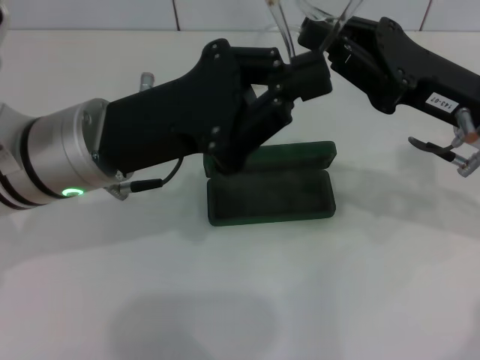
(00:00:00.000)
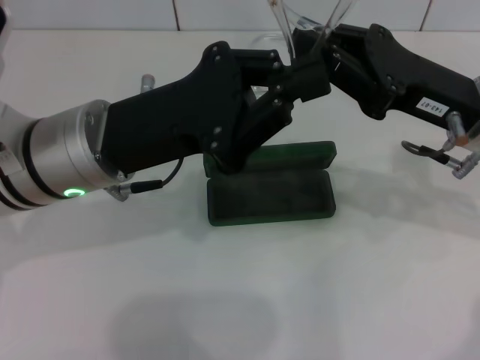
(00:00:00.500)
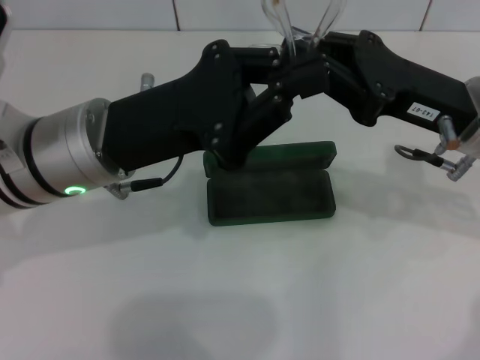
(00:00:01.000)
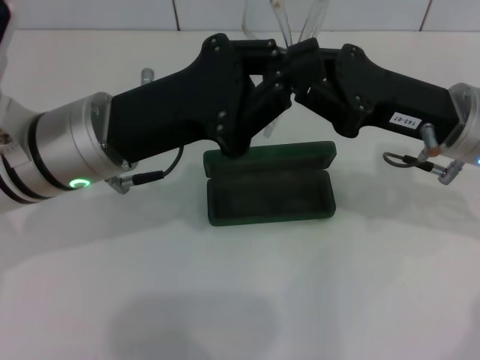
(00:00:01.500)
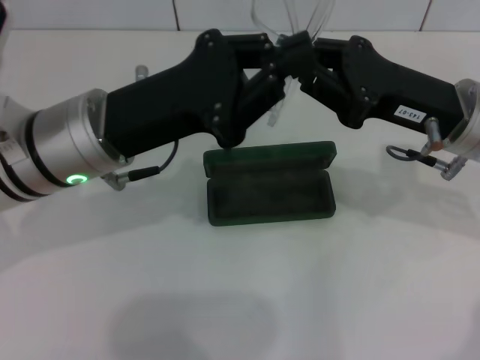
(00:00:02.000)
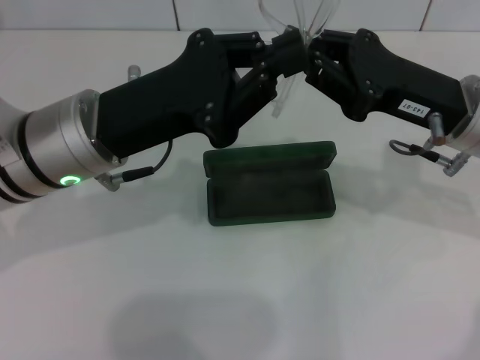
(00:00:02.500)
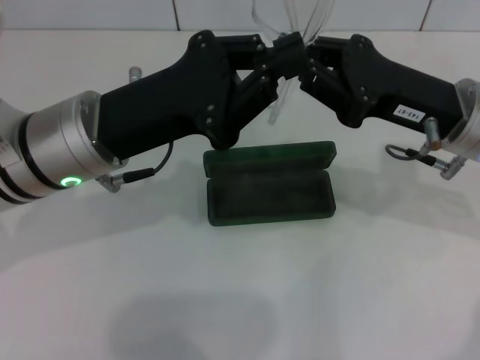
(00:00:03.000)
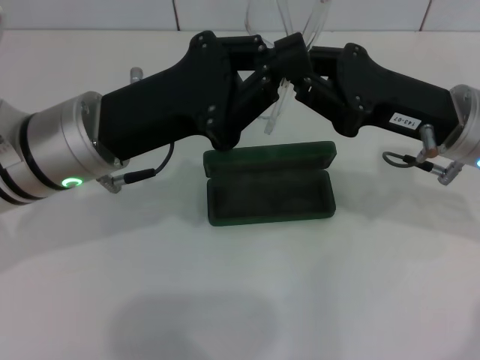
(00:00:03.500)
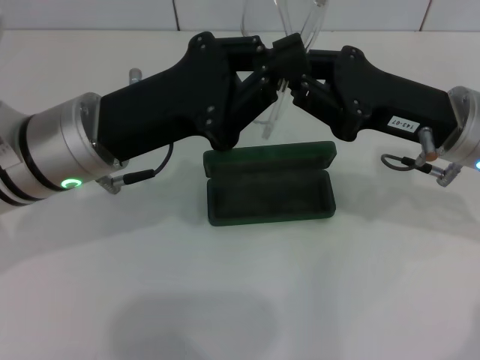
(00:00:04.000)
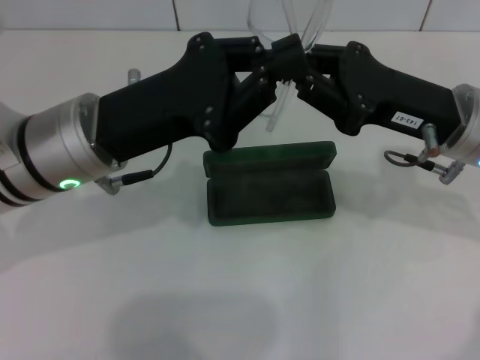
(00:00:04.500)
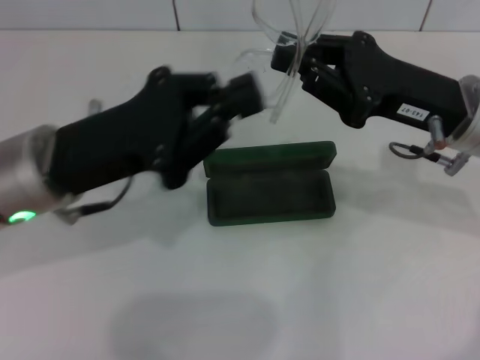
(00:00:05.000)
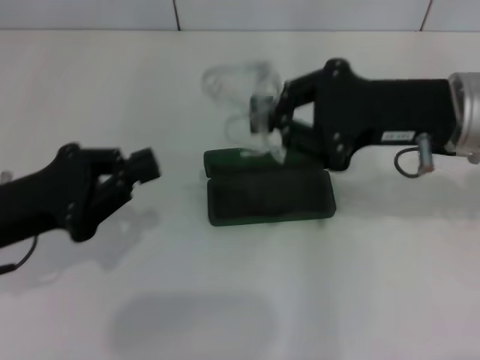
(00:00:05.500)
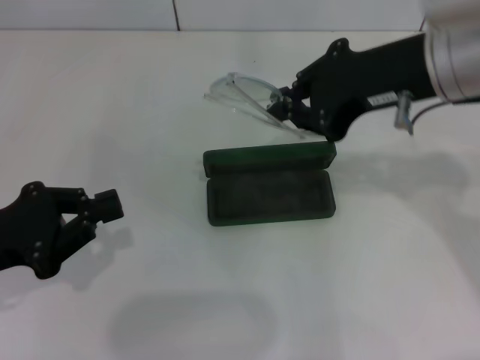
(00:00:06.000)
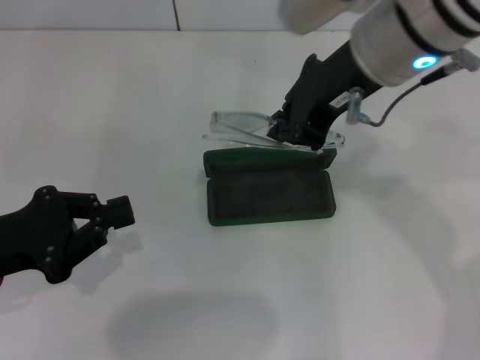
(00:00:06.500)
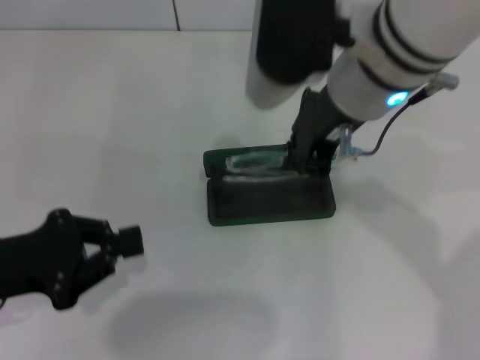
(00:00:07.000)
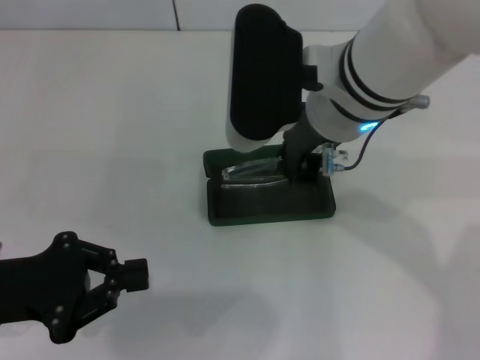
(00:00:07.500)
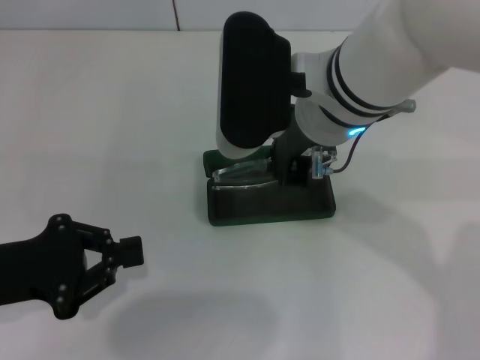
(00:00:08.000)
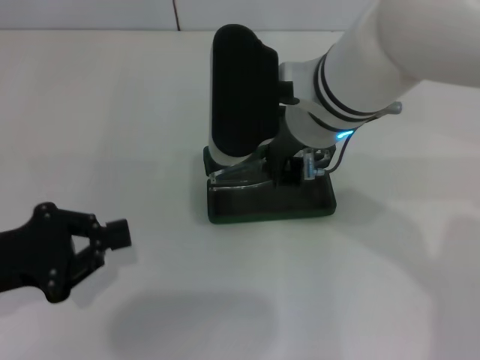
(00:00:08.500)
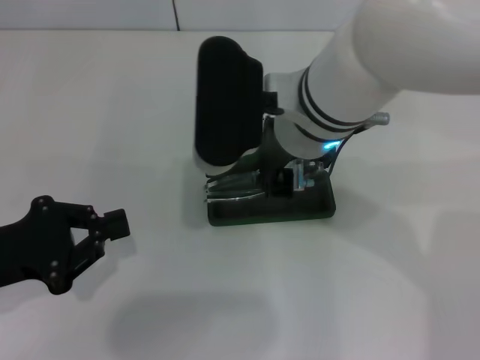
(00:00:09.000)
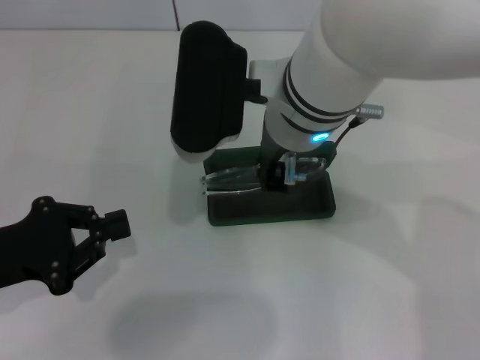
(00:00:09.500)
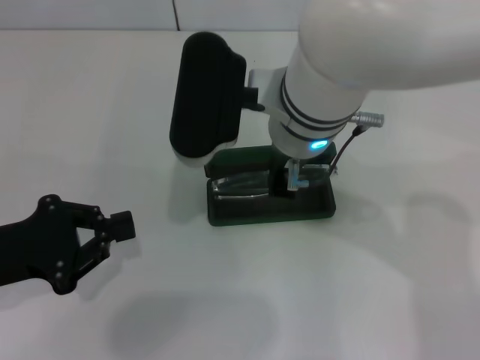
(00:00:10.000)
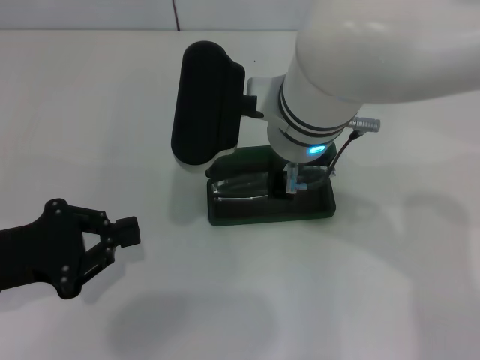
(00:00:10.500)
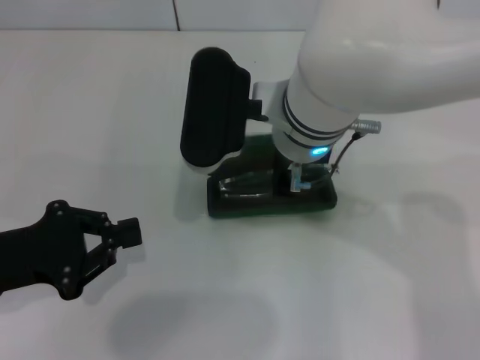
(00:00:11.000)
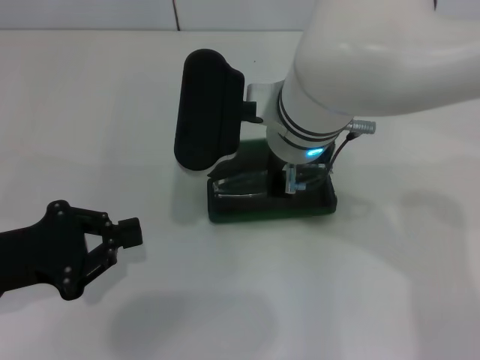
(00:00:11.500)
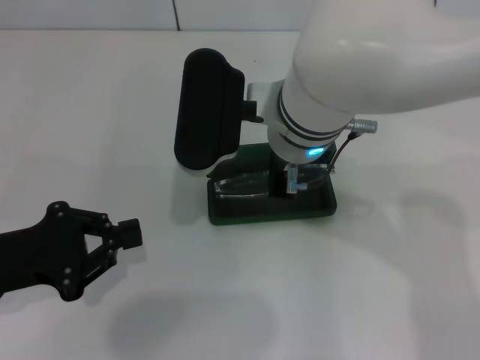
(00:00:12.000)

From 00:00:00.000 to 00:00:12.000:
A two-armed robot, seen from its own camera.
From 00:00:00.000 to 00:00:02.000: The grippers make only small movements.
From 00:00:02.000 to 00:00:04.000: The two grippers keep their place.
From 00:00:04.000 to 00:00:06.000: The left gripper travels to the left and backward by about 15 cm. Meanwhile the right gripper shifts approximately 10 cm upward.
From 00:00:06.000 to 00:00:08.000: The right gripper shifts approximately 10 cm to the left.
From 00:00:10.000 to 00:00:12.000: The grippers move only a little.

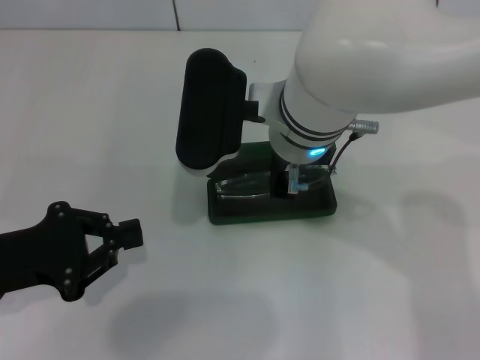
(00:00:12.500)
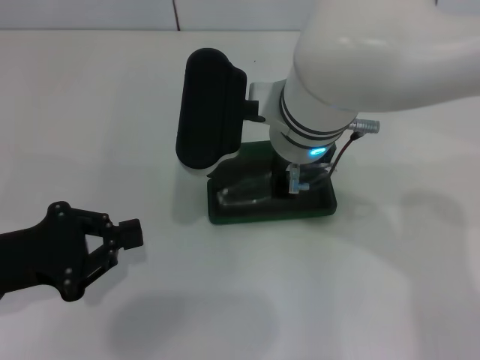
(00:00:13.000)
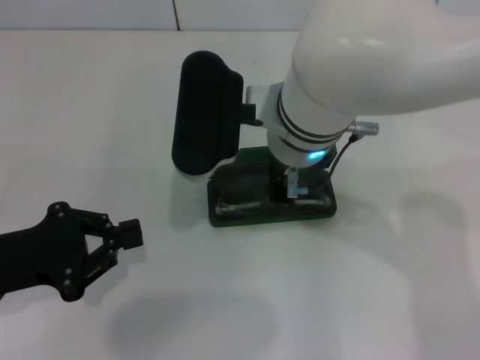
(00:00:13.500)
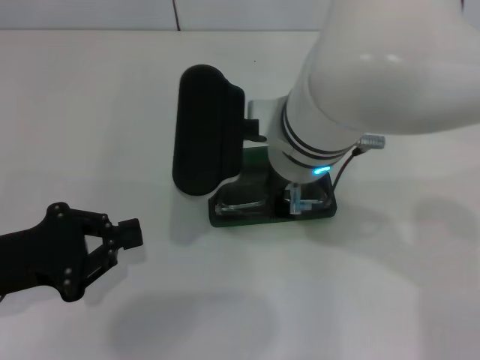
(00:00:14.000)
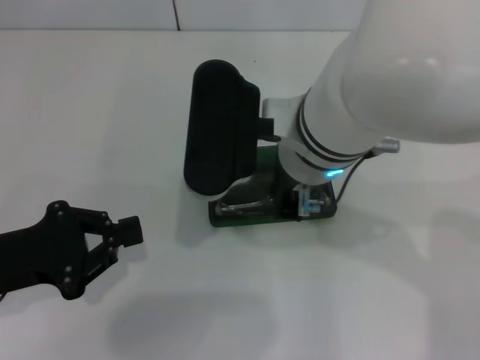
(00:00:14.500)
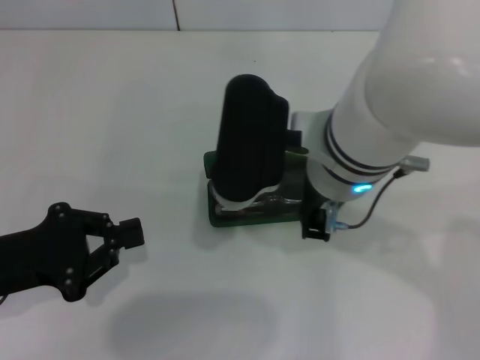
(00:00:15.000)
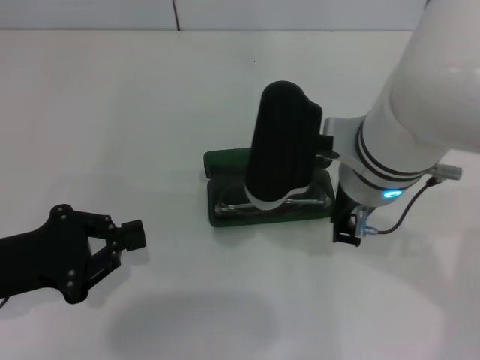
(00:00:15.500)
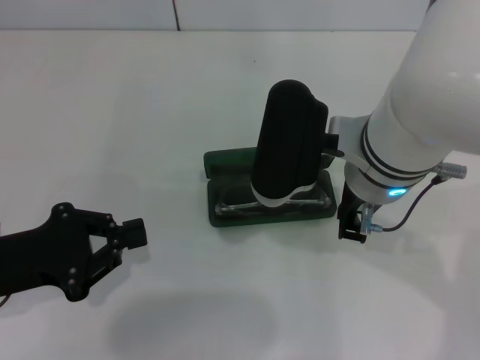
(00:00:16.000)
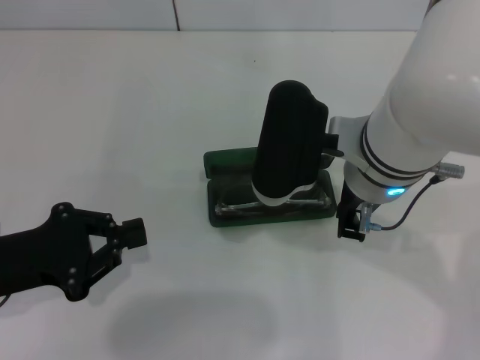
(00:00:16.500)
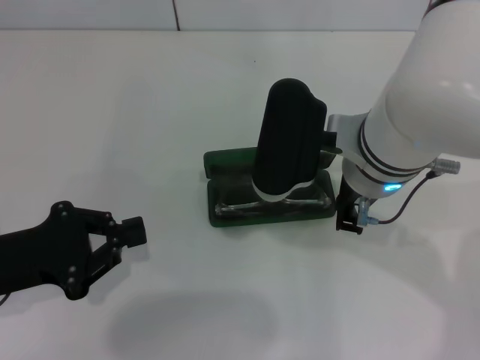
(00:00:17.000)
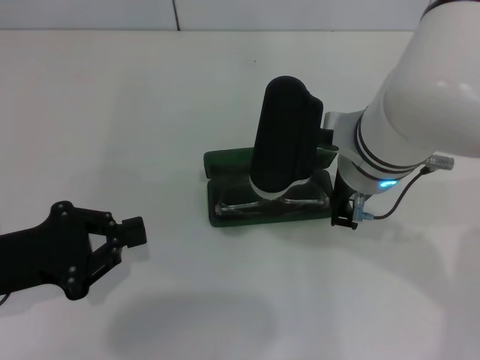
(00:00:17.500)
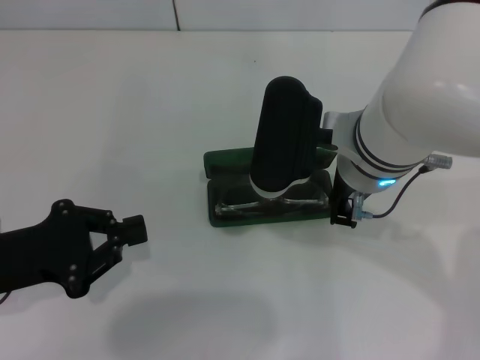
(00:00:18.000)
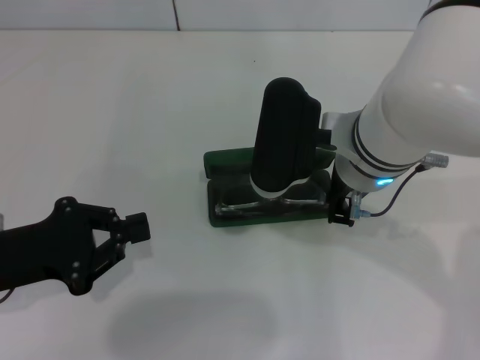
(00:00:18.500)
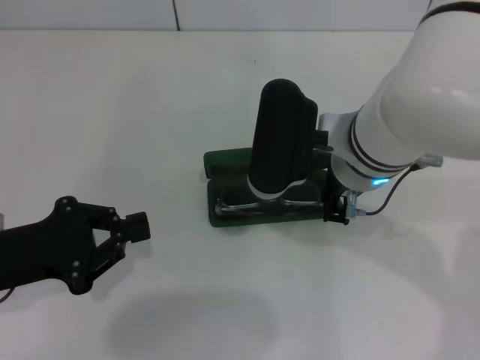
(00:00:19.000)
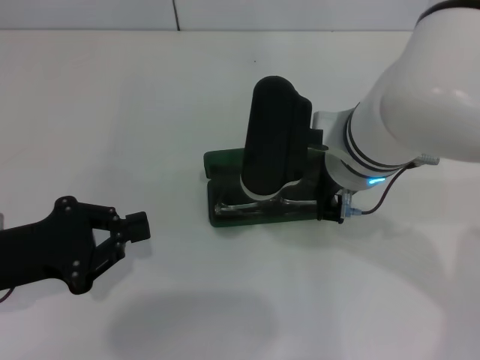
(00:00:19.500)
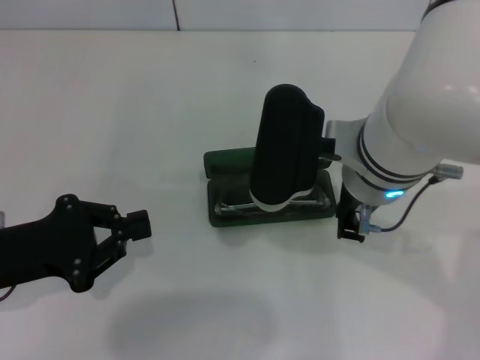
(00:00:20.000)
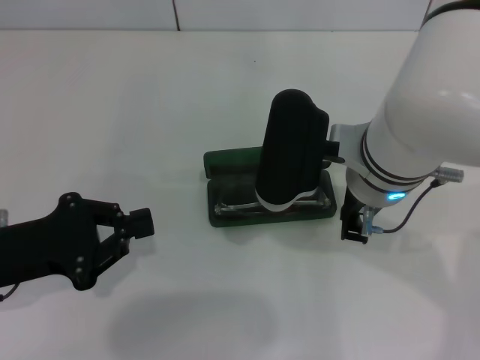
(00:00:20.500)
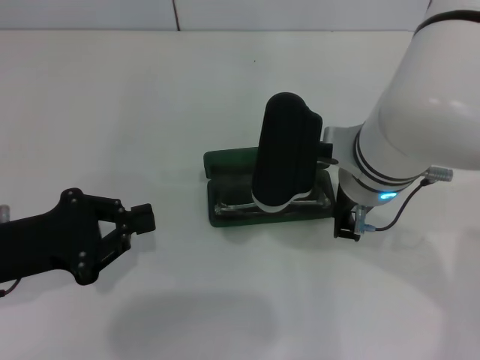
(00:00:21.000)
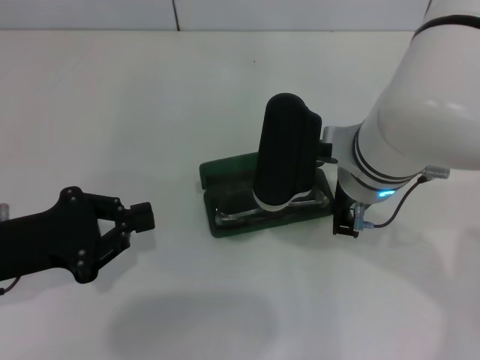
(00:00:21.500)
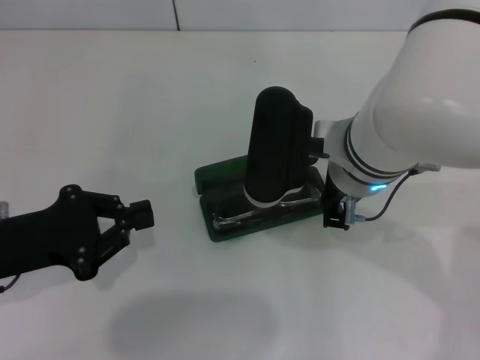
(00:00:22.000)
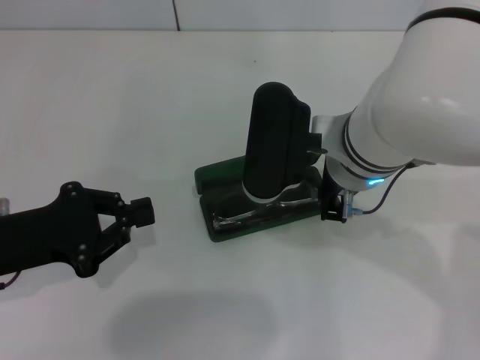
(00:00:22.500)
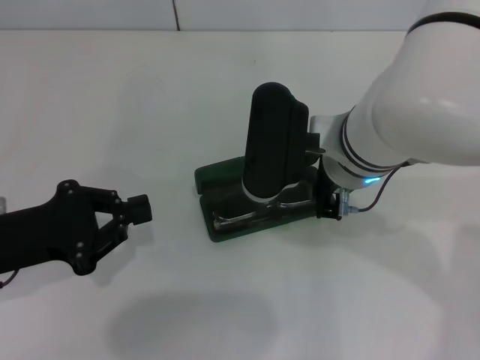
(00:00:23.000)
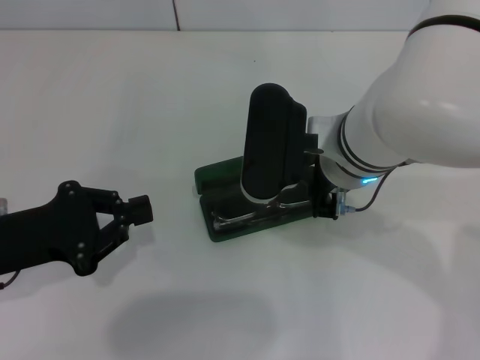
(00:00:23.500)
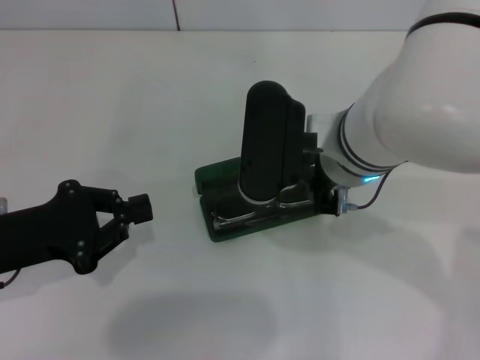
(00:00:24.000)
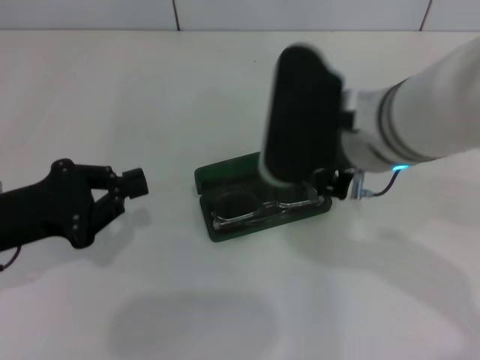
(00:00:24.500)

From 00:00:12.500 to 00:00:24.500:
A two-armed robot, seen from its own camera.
Step, from 00:00:12.500 to 00:00:19.500: Put the glasses into the case with your right hand.
From 00:00:12.500 to 00:00:14.500: The grippers make only small movements.
From 00:00:14.500 to 00:00:16.500: The right gripper moves about 5 cm.
From 00:00:16.500 to 00:00:24.500: The grippers stay close to where they were, moving slightly.

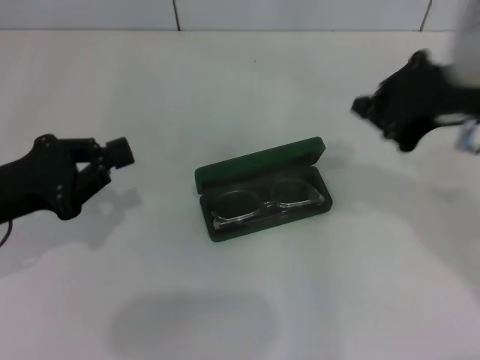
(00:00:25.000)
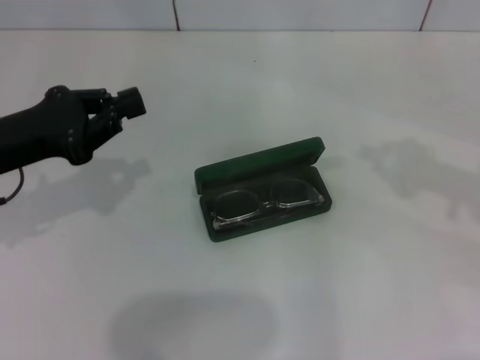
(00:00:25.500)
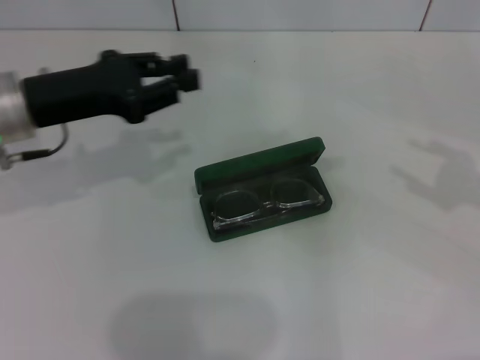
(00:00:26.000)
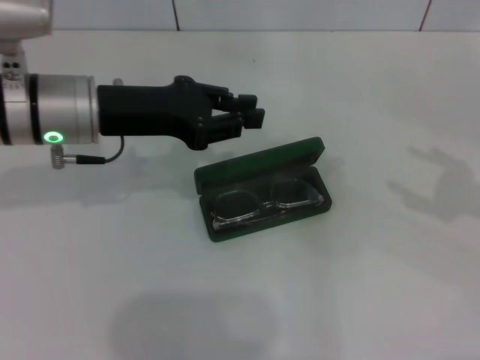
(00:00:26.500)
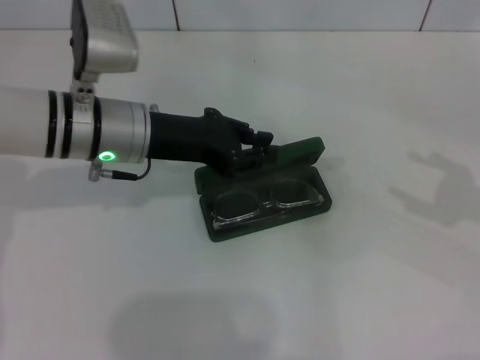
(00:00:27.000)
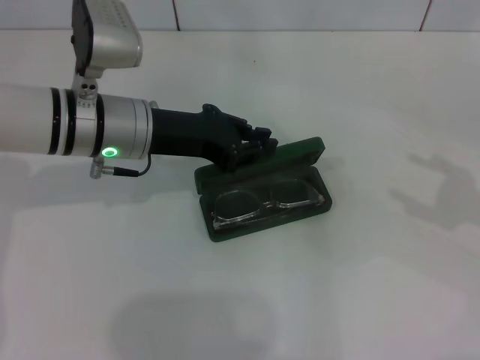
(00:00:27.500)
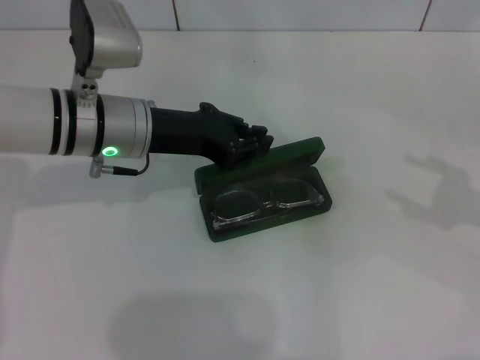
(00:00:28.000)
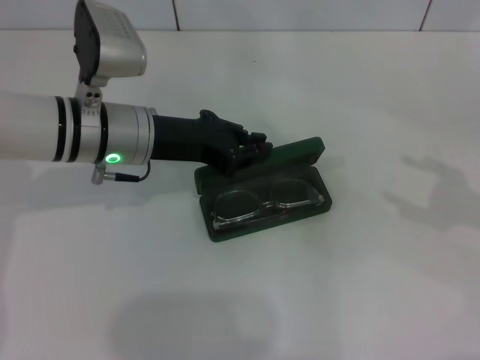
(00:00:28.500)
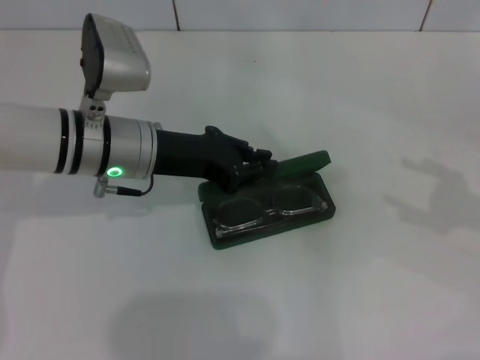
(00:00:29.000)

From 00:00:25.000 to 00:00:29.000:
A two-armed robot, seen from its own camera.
From 00:00:25.000 to 00:00:27.000: The left gripper heads to the right and forward, covering about 15 cm. Meanwhile the right gripper shifts roughly 20 cm to the right, and opens.
From 00:00:27.000 to 00:00:29.000: The grippers move only a little.
